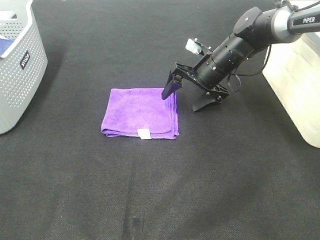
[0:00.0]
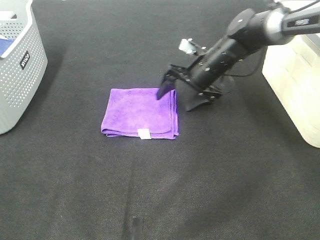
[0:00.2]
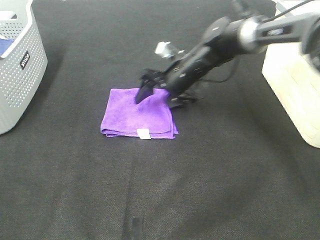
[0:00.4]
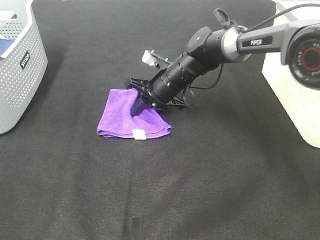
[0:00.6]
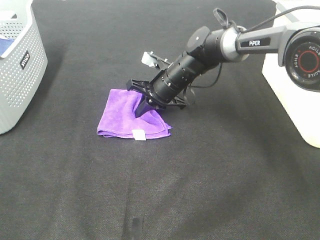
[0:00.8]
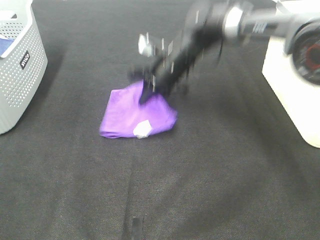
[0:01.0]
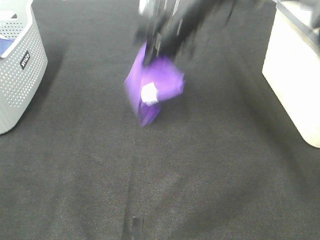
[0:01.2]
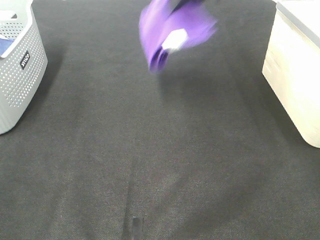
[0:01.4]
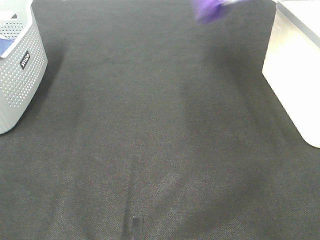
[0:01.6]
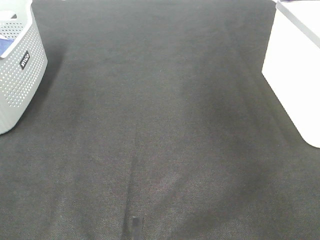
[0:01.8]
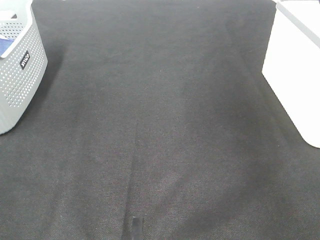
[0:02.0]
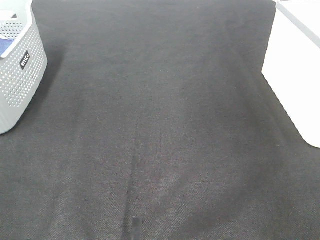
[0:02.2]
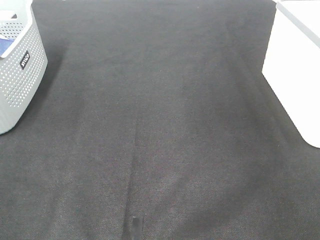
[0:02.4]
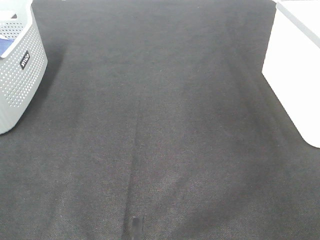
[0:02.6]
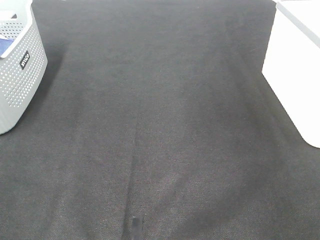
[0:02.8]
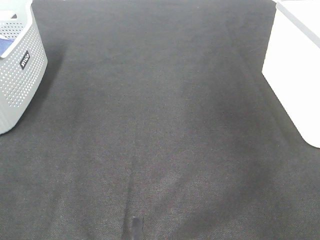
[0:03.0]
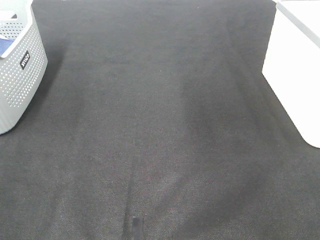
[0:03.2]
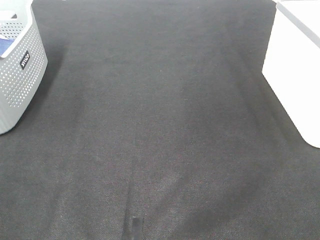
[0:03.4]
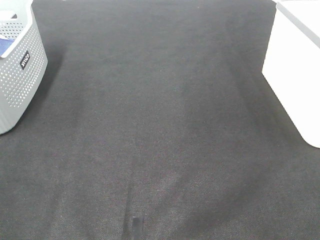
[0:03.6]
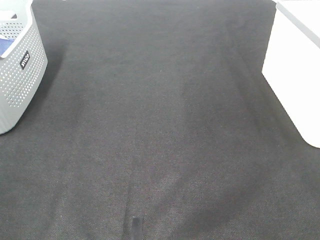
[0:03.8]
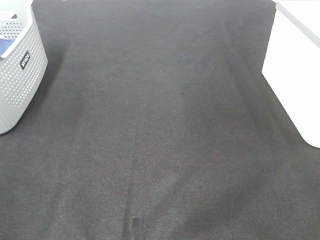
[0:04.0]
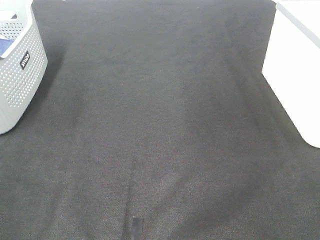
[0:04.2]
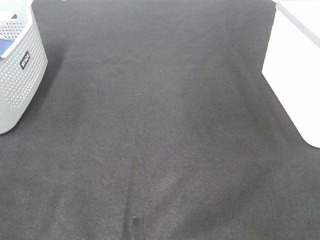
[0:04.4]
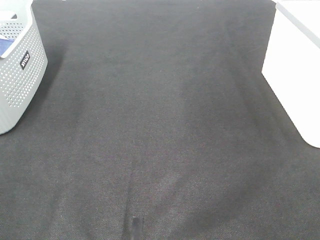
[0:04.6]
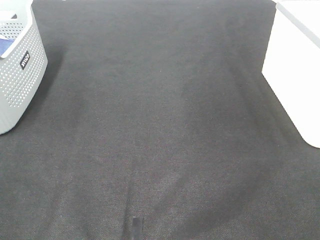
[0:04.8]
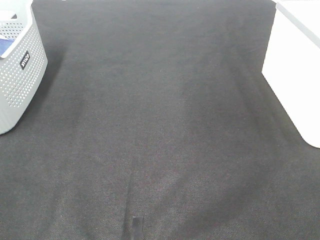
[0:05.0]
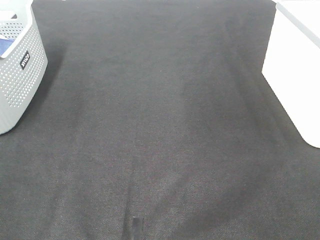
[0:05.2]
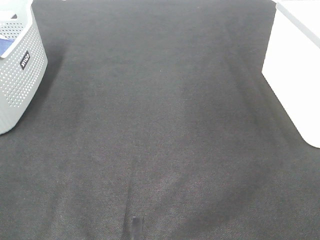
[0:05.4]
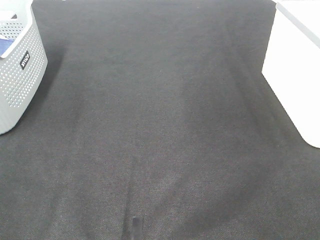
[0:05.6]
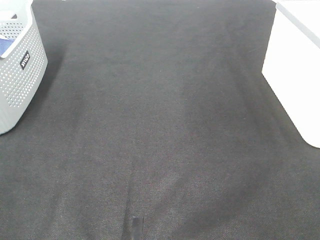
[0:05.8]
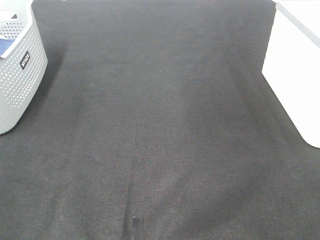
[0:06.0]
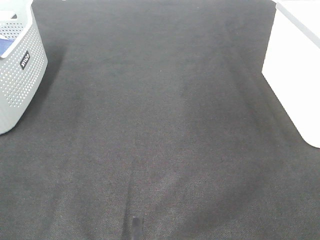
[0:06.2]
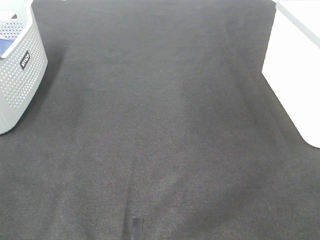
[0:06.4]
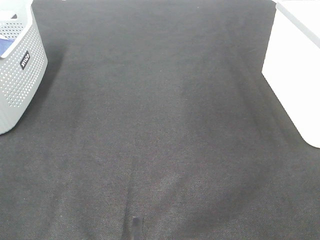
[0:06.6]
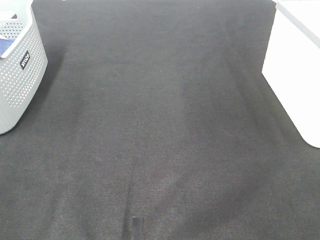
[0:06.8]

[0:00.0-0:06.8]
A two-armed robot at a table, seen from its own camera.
Step, 0:00.8 to 0:02.4: Right hand: place the purple towel in right basket.
0:00.0 to 0:01.4: The right gripper is displaced upward by roughly 25 cm, and closes.
0:01.4 to 0:02.8: The right gripper heads to the right, covering approximately 30 cm, and opens its fingers.

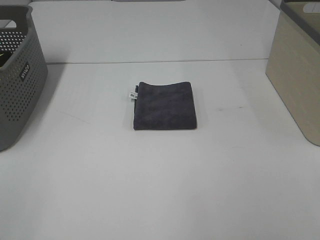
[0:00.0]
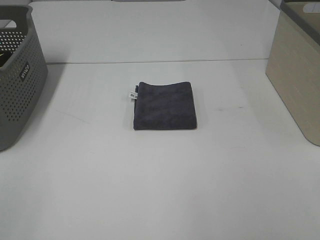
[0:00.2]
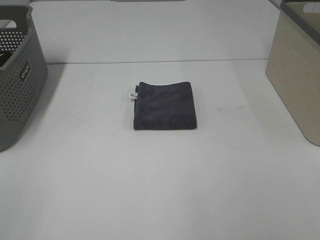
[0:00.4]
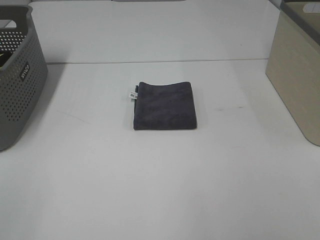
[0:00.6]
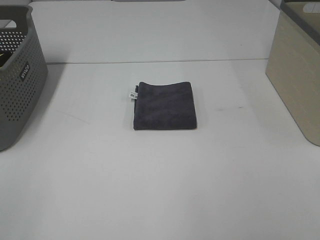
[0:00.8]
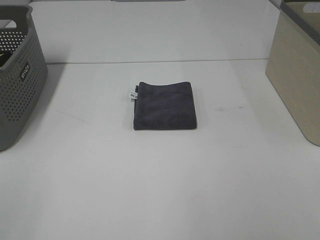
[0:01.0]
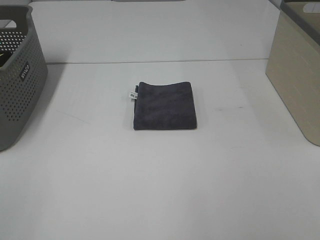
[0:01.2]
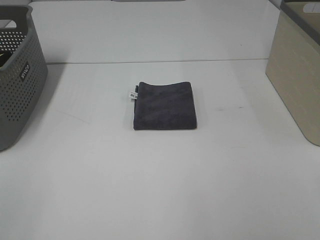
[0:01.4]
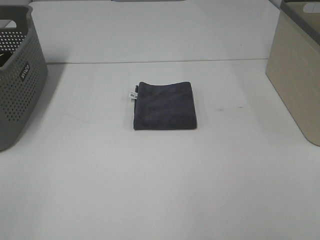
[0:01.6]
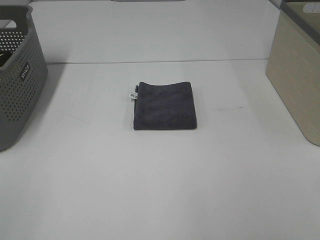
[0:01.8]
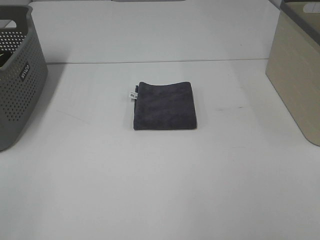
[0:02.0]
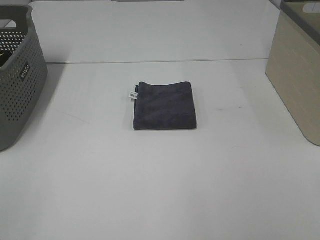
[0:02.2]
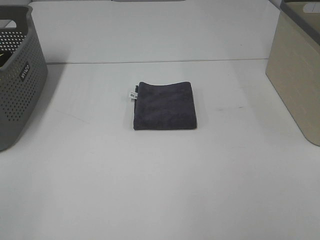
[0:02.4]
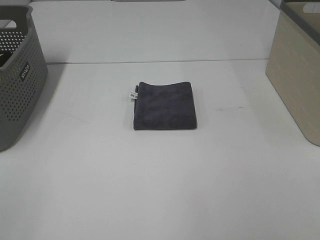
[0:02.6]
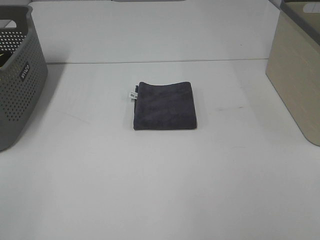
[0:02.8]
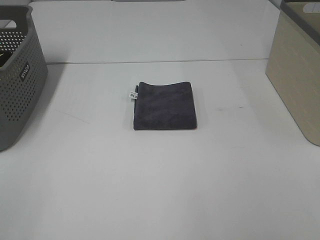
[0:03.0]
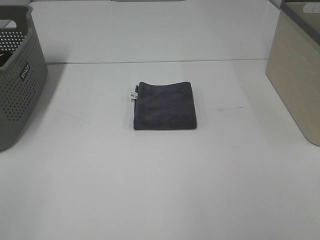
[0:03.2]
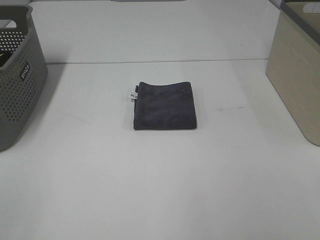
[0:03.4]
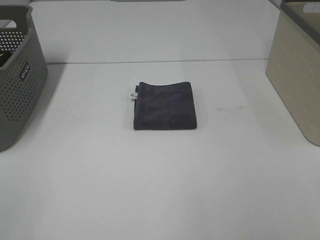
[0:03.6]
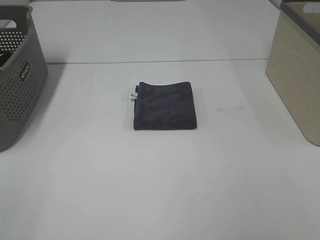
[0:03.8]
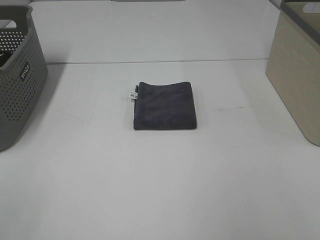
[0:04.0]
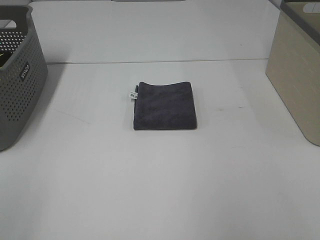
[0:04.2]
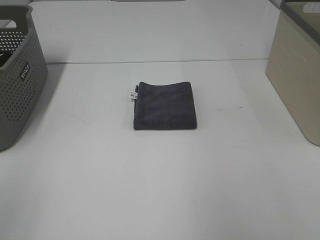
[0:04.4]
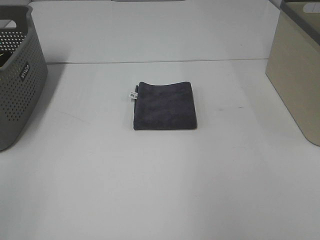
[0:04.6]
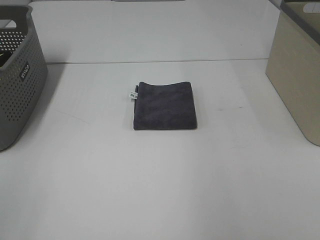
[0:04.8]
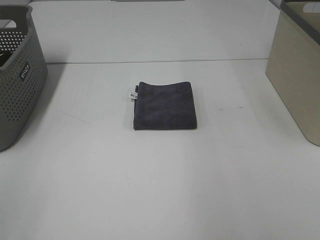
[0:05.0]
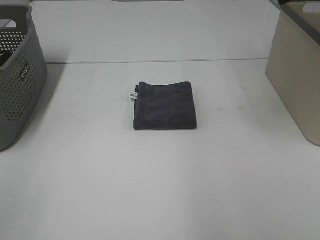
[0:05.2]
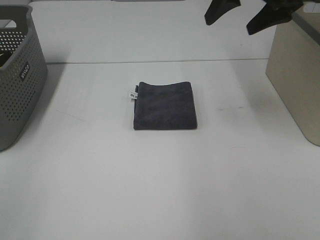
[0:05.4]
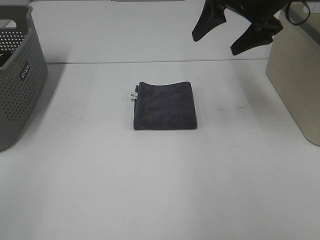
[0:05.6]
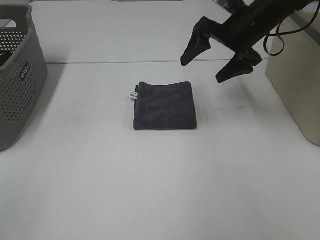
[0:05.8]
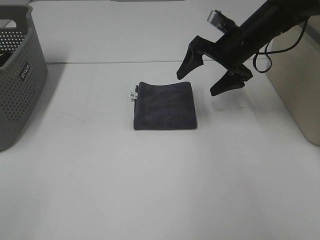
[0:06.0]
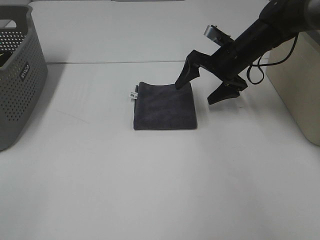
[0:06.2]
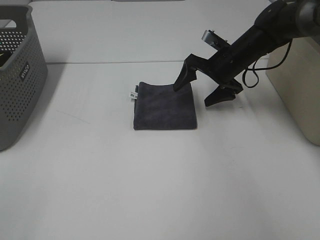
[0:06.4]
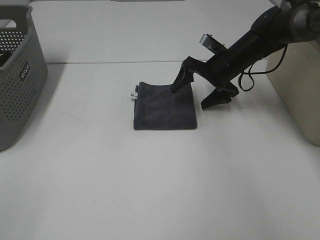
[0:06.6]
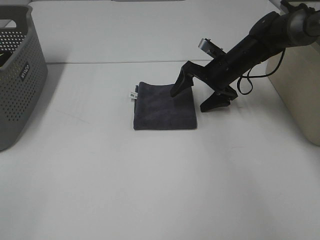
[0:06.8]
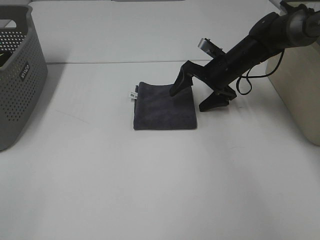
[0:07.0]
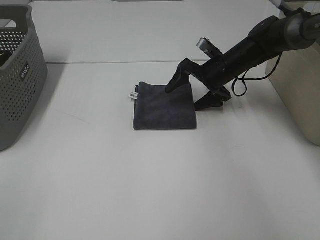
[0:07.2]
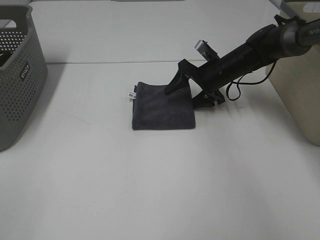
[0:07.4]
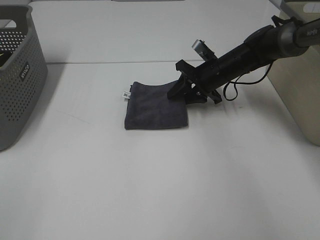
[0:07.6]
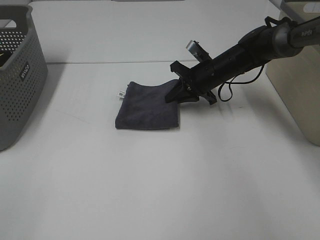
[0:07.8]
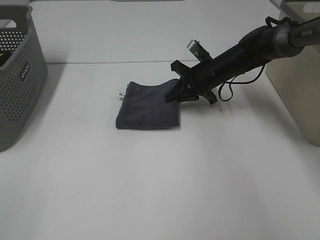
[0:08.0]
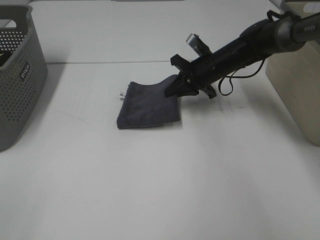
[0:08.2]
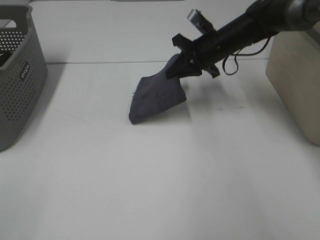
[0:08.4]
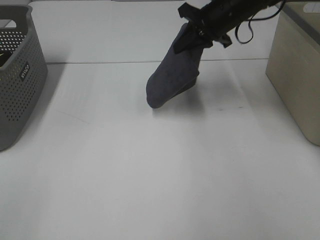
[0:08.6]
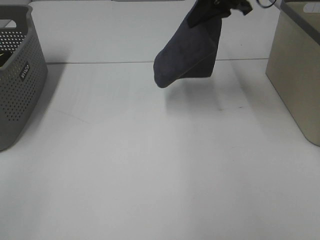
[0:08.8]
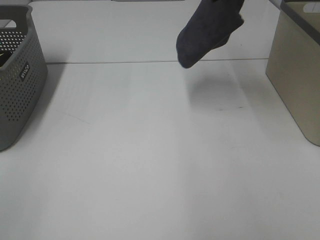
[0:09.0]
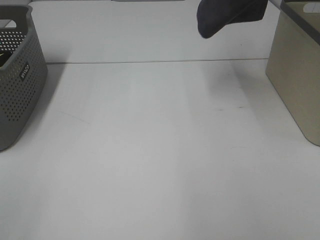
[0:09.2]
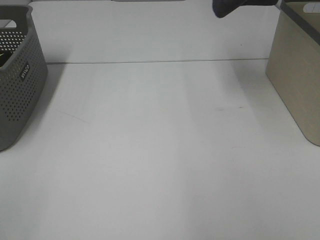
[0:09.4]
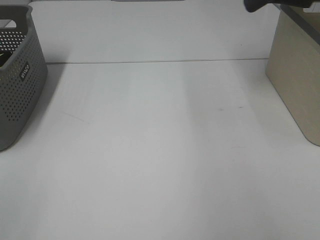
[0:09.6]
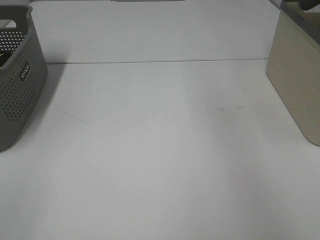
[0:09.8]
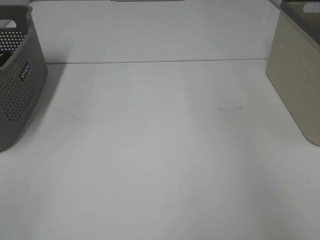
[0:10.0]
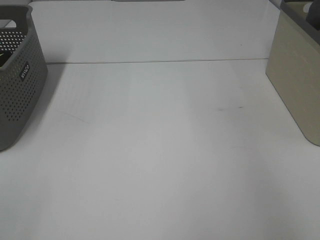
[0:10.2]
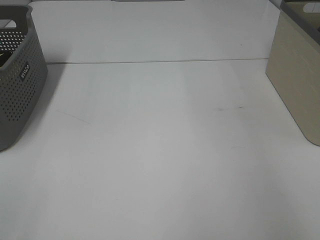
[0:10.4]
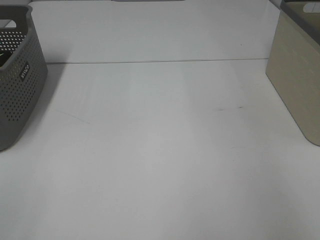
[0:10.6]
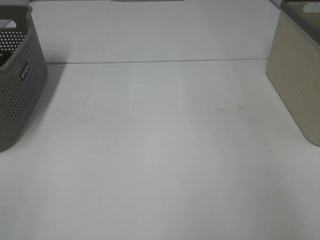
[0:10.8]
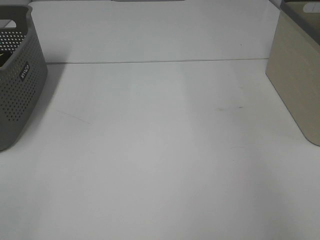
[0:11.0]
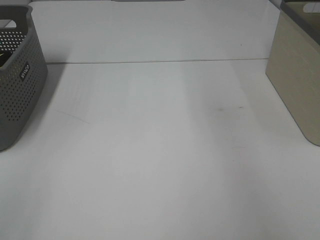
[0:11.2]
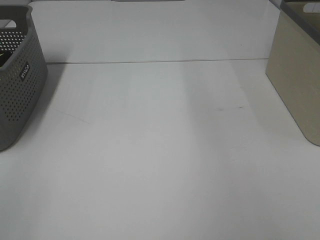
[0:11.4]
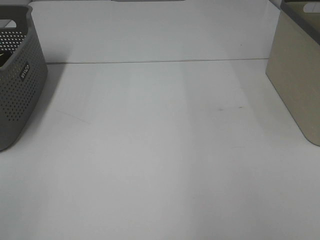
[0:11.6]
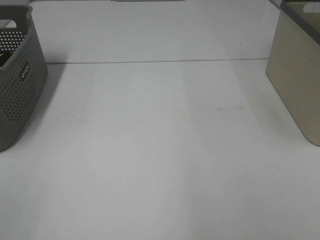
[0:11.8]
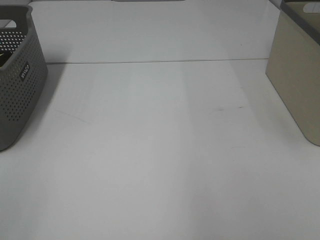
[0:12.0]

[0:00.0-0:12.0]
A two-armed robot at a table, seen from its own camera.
Step, 0:00.0 to 0:07.6: Right hand: grab the folded grey towel.
Step, 0:07.8 to 0:11.0: Right hand: place the grey towel in right basket.
0:00.0 to 0:03.0: The two grippers keep their place.
0:04.4 to 0:06.0: The right gripper heads forward, downward and to the left, covering approximately 35 cm.
0:06.0 to 0:07.6: The right gripper heads downward, covering about 10 cm, and closes.
0:07.6 to 0:09.0: The right gripper shifts approximately 25 cm upward.
0:09.0 to 0:10.4: The right gripper is displaced to the right by some 25 cm.

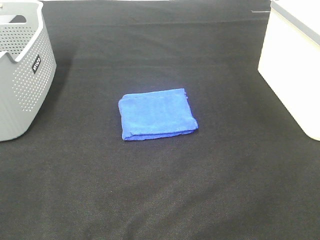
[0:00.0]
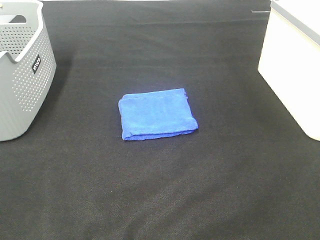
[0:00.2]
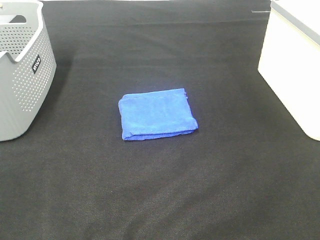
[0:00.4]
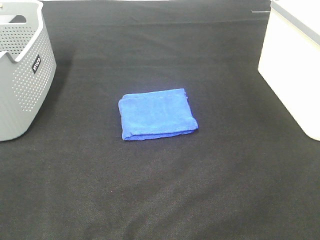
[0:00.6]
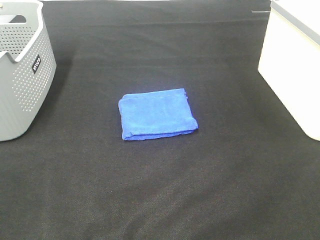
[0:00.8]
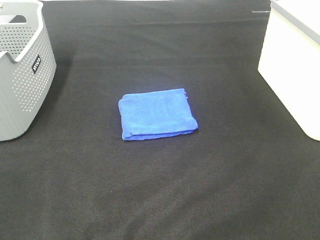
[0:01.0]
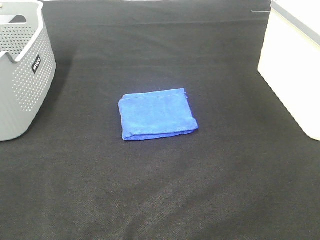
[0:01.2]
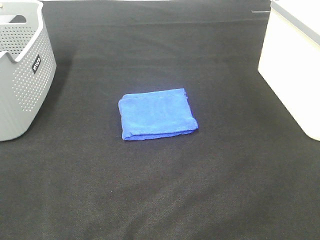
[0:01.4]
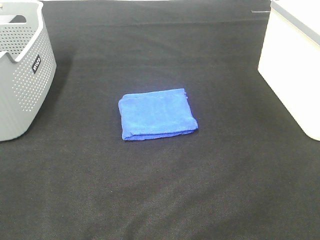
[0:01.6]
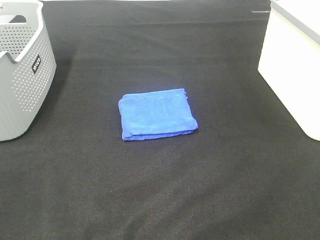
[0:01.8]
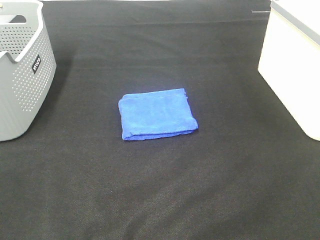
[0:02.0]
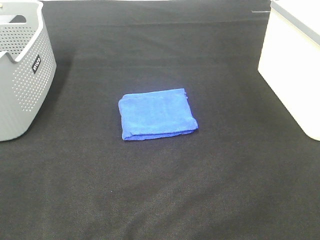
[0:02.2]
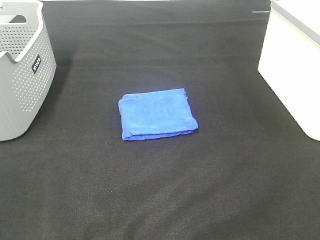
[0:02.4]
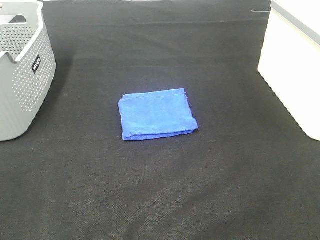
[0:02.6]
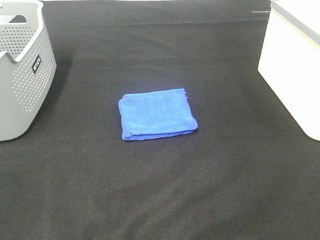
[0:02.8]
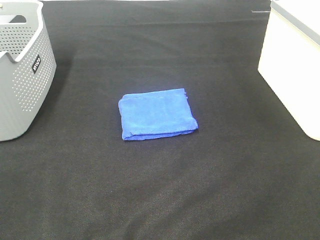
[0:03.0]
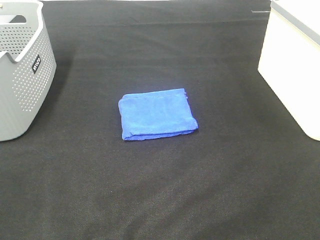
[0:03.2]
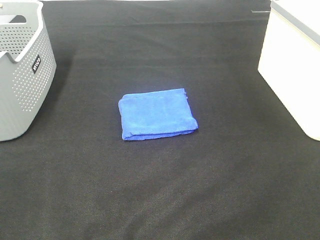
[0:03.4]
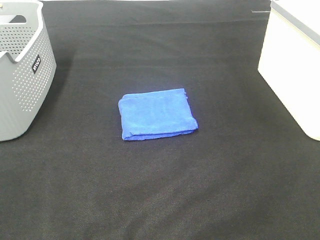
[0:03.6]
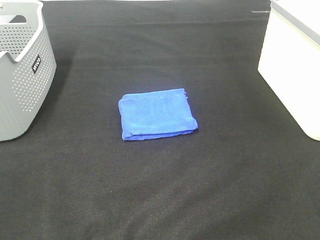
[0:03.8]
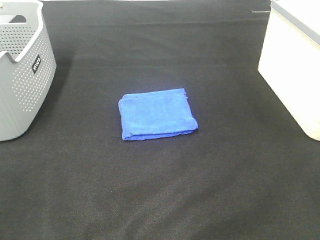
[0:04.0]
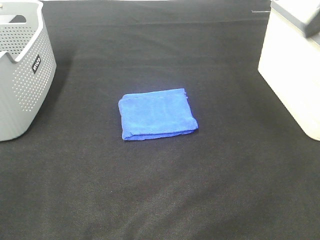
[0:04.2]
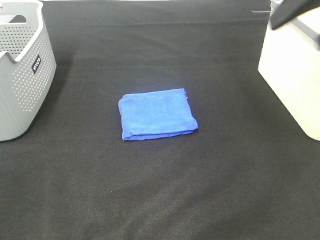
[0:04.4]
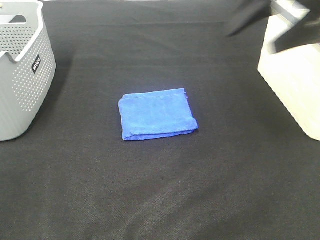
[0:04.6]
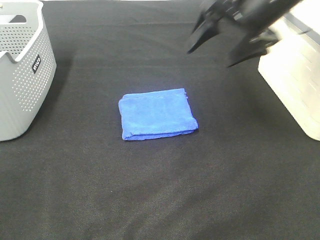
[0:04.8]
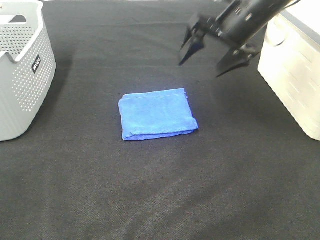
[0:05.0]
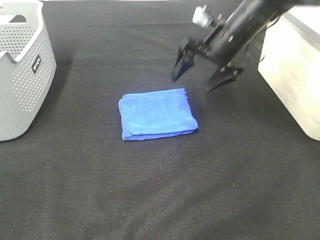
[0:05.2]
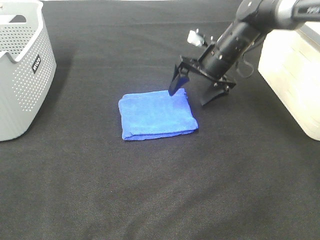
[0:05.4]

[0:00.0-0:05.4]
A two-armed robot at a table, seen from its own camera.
0:01.4 to 0:02.8: The two grippers keep their place.
0:04.0 to 0:05.4: The right gripper goes some 40 cm forward, downward and to the left.
